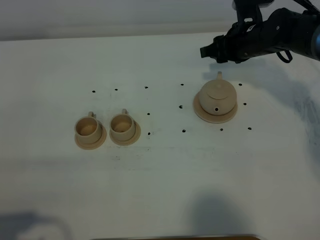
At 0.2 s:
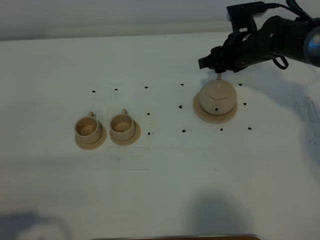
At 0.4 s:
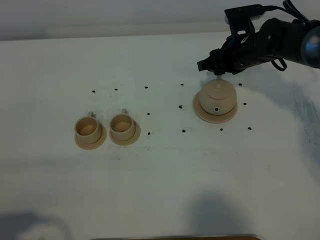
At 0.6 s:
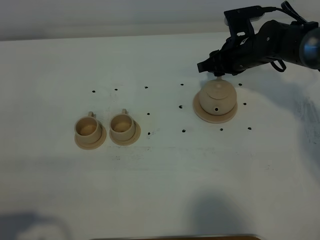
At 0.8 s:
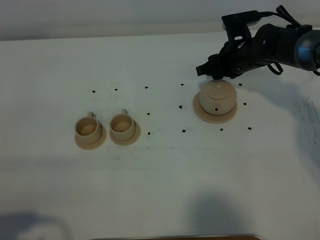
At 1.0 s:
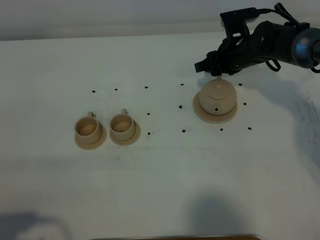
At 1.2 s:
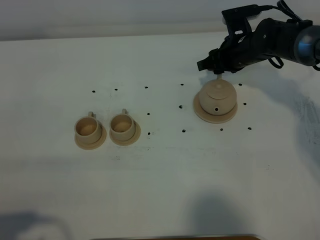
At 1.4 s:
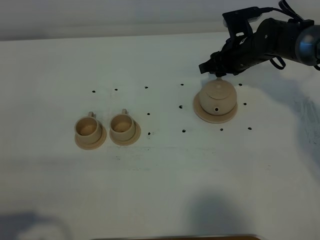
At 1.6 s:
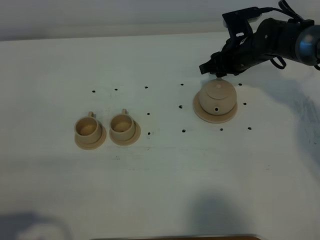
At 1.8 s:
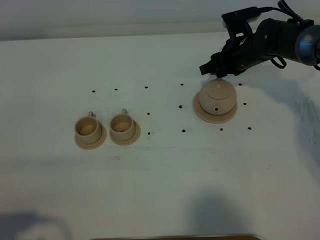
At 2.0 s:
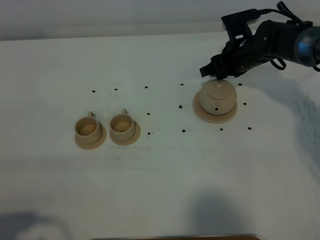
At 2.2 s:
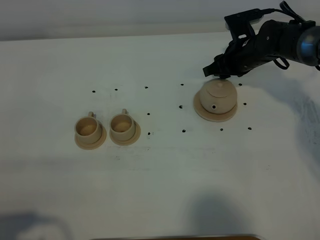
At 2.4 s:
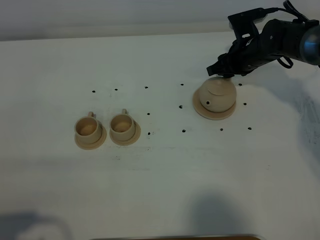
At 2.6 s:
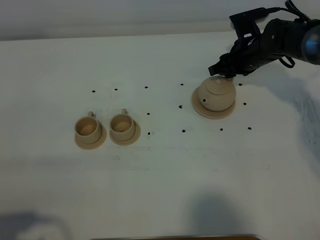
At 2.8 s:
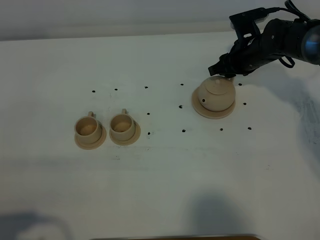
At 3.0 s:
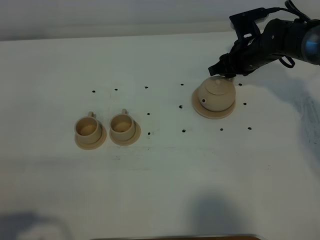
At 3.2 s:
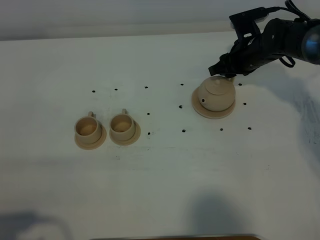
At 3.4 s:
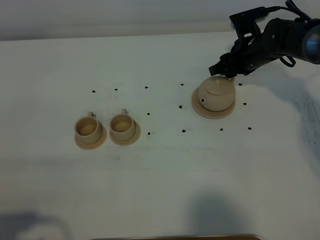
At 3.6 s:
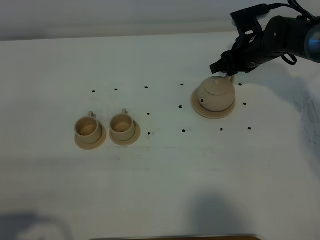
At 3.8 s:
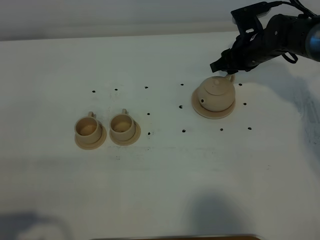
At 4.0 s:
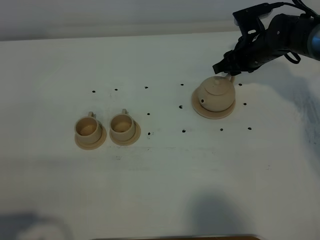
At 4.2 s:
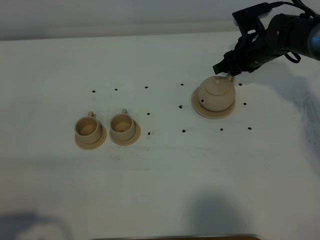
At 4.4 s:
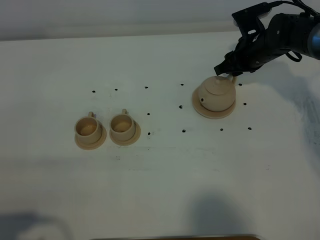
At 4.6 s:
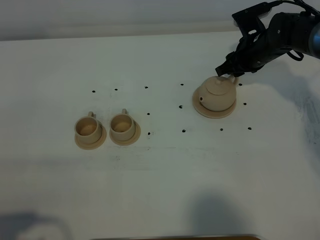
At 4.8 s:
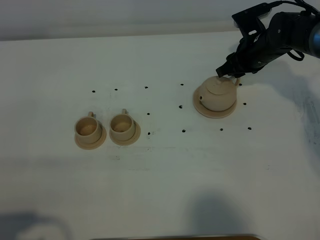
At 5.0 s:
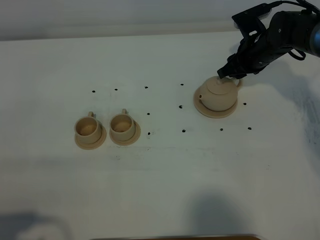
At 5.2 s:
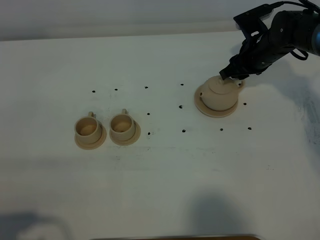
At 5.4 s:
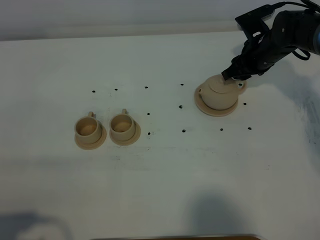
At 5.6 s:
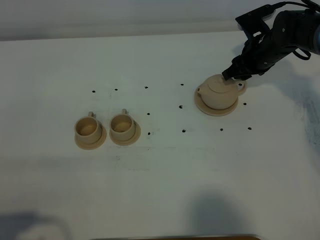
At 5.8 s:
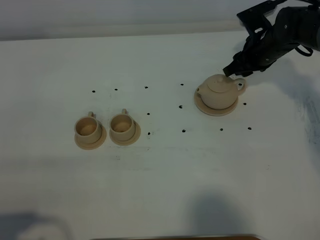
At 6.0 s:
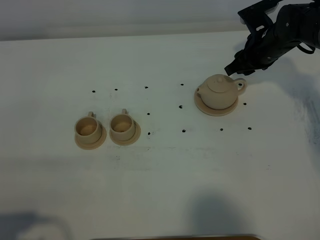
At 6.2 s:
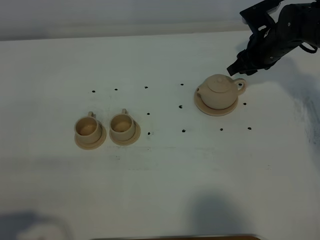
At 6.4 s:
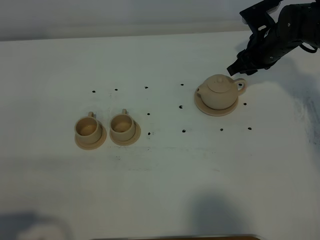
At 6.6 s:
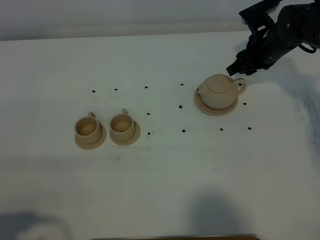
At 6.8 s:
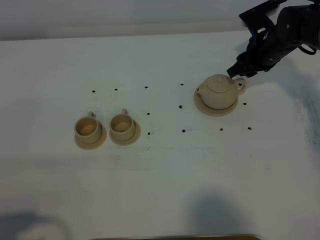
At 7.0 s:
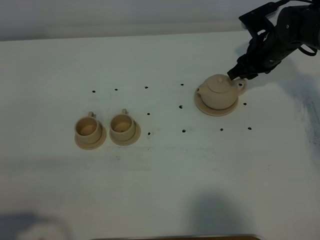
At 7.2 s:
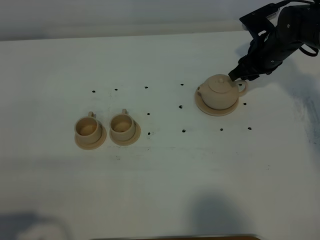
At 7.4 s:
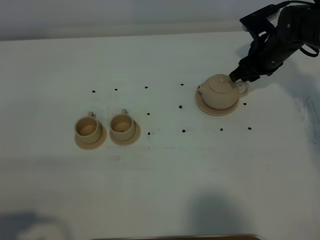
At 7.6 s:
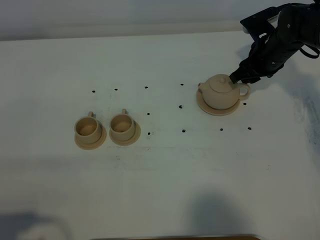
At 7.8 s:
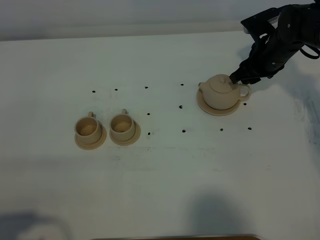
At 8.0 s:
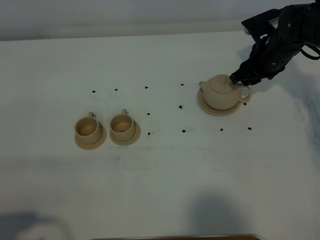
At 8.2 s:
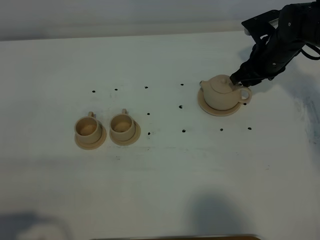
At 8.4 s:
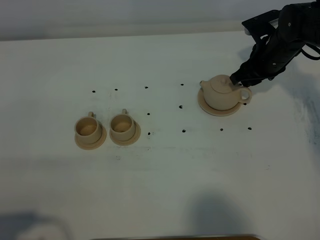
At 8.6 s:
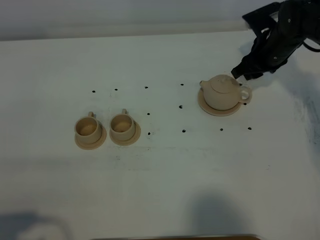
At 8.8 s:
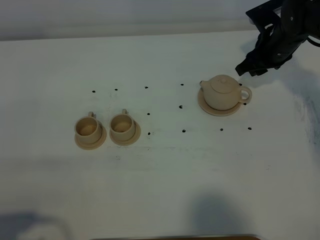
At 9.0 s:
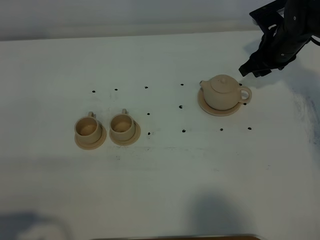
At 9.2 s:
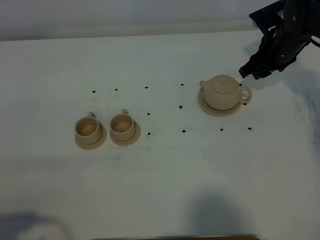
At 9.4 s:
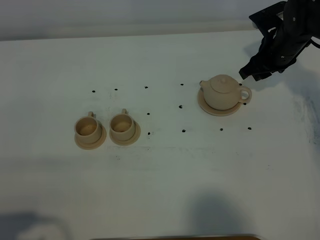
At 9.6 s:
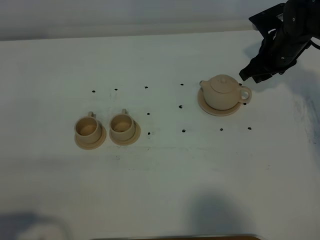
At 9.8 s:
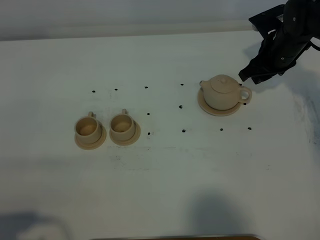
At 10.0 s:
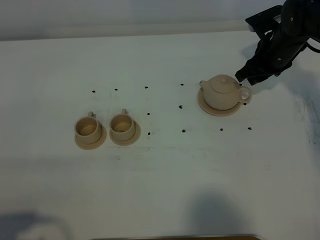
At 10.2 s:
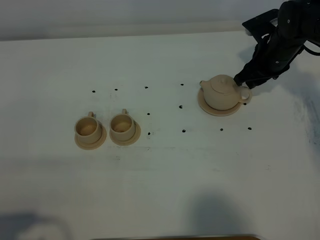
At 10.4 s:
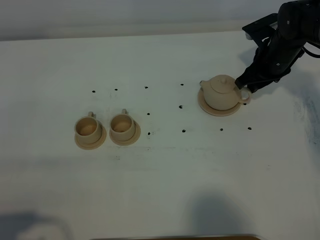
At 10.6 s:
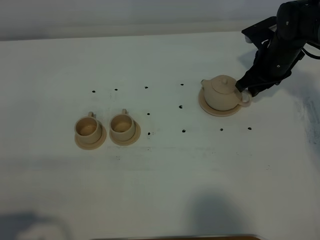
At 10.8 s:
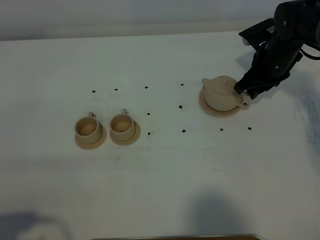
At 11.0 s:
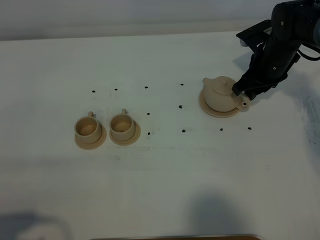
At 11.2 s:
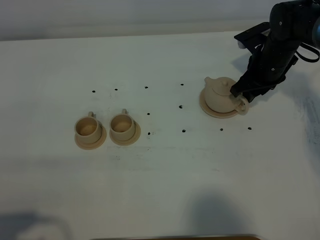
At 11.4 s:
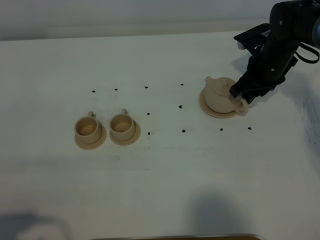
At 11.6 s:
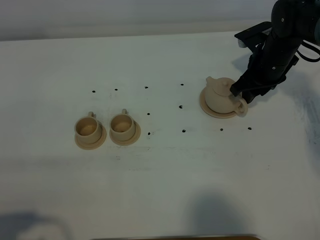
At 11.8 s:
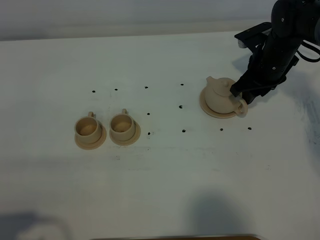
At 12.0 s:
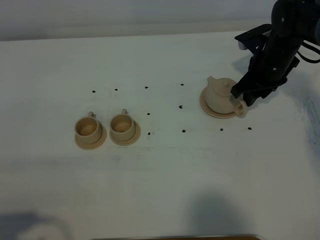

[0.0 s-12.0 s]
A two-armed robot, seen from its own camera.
Task of the whole recording: grasp the brown teapot and pour the tea into the two brown teacups one by one, put the brown teapot back in its original place.
0.0 to 3.0 s: The grippers stay close to where they were, moving slightly.
3.0 to 4.4 s: Both grippers stay put.
4.4 to 9.0 s: There are only small adjustments of the grippers.
9.0 to 12.0 s: The grippers stay close to where they were, moving slightly.

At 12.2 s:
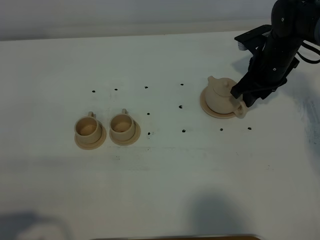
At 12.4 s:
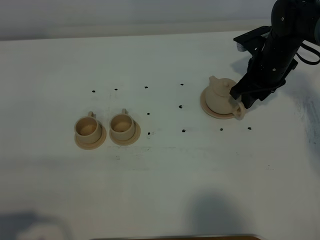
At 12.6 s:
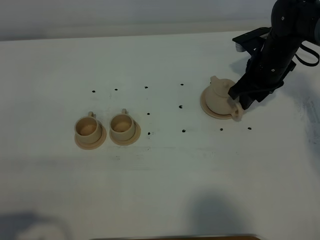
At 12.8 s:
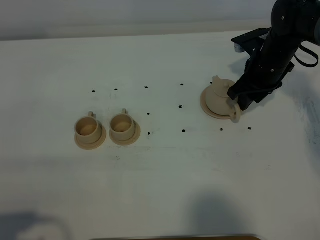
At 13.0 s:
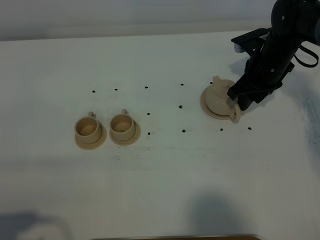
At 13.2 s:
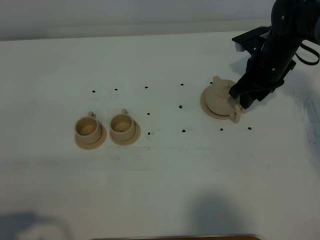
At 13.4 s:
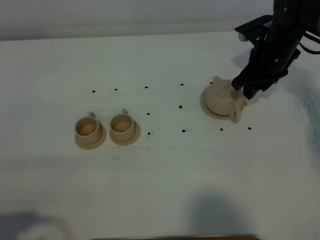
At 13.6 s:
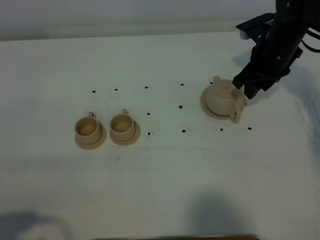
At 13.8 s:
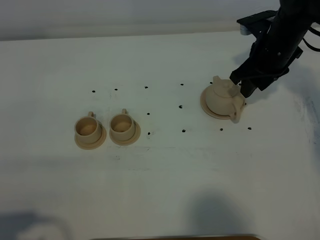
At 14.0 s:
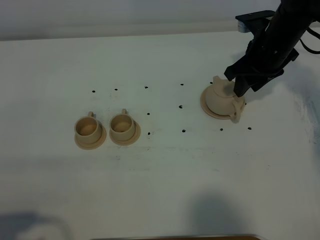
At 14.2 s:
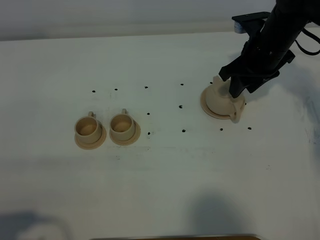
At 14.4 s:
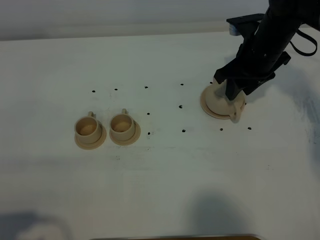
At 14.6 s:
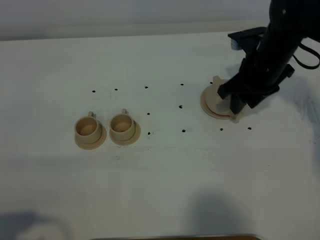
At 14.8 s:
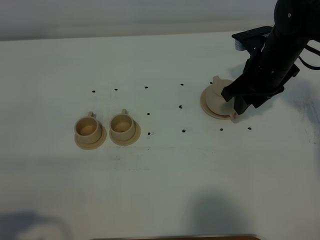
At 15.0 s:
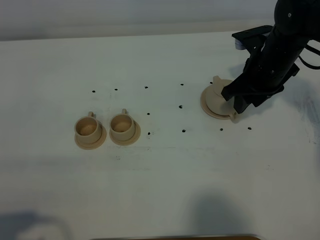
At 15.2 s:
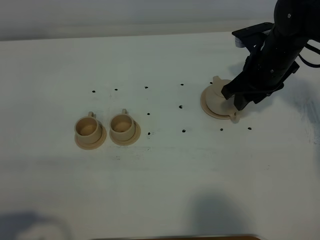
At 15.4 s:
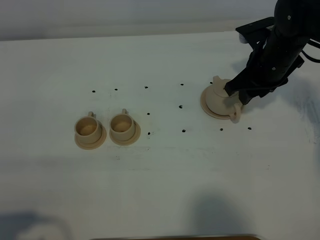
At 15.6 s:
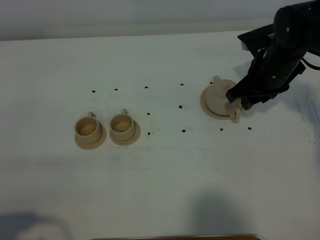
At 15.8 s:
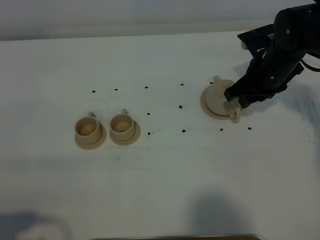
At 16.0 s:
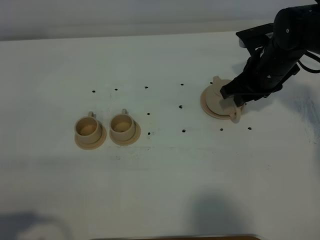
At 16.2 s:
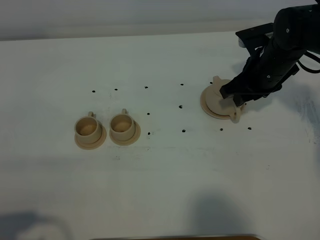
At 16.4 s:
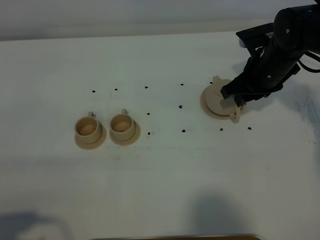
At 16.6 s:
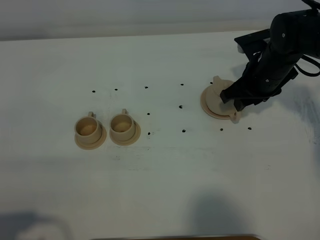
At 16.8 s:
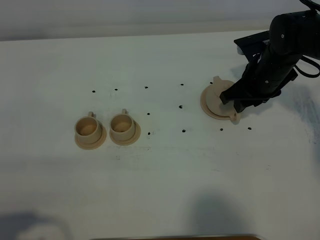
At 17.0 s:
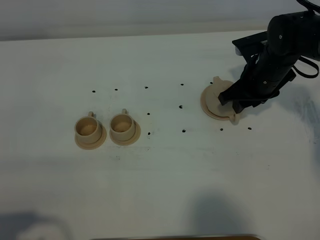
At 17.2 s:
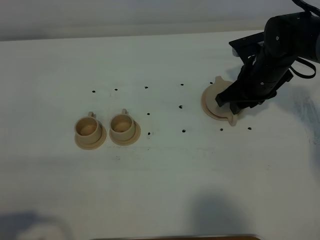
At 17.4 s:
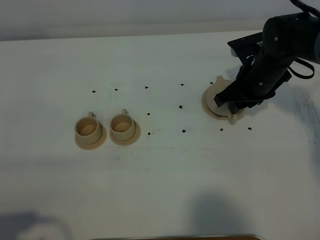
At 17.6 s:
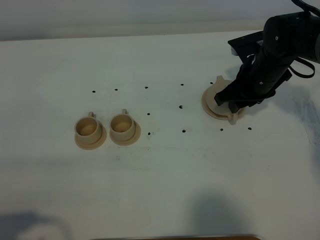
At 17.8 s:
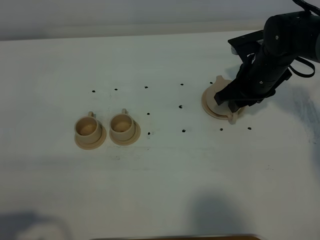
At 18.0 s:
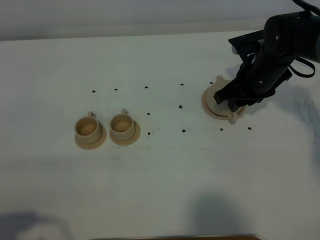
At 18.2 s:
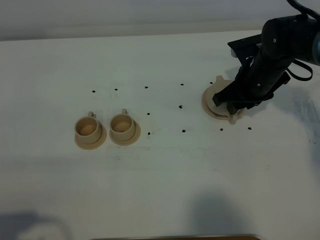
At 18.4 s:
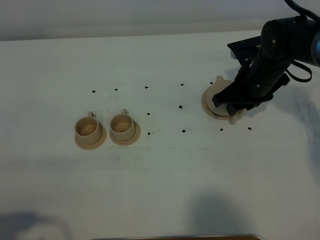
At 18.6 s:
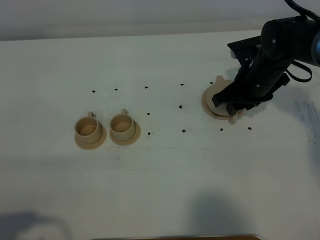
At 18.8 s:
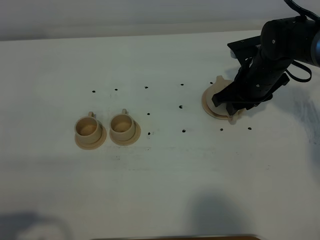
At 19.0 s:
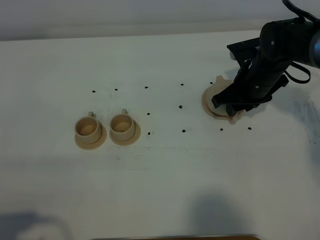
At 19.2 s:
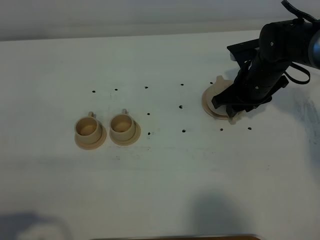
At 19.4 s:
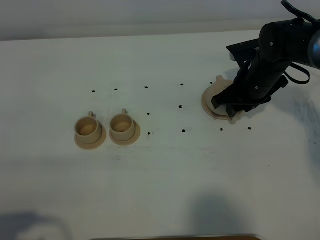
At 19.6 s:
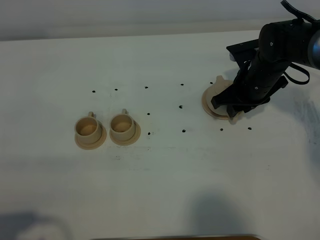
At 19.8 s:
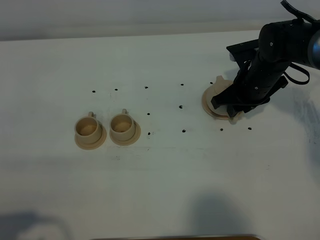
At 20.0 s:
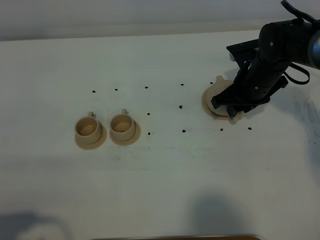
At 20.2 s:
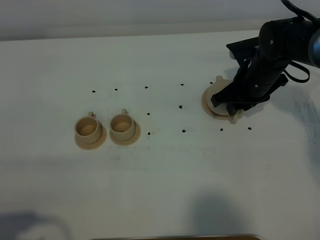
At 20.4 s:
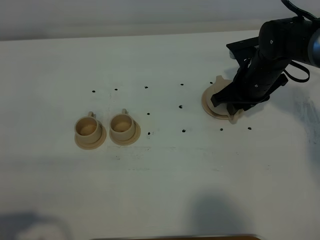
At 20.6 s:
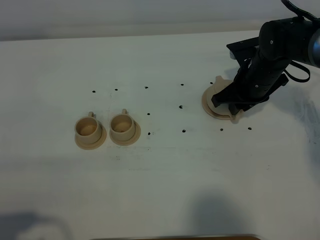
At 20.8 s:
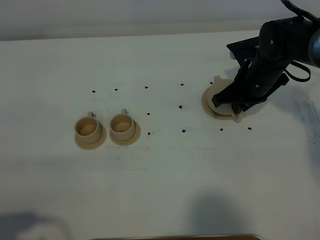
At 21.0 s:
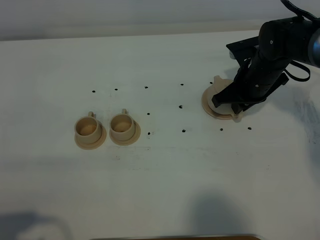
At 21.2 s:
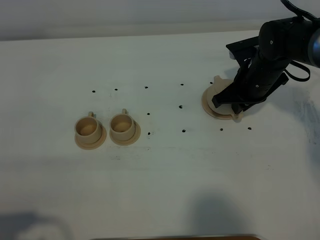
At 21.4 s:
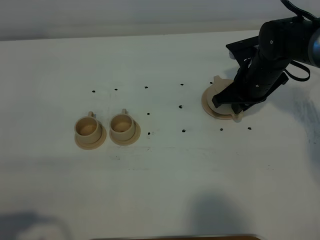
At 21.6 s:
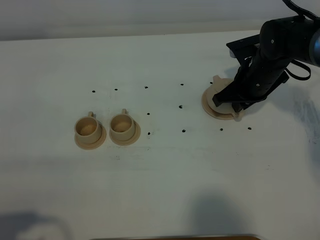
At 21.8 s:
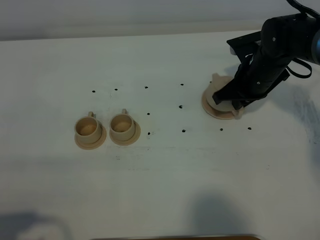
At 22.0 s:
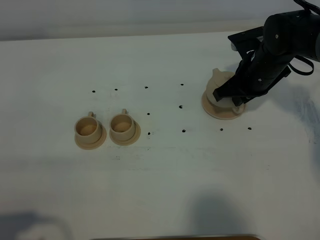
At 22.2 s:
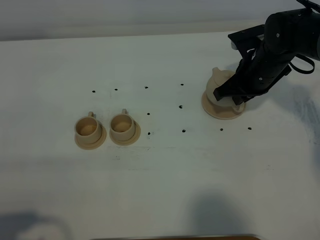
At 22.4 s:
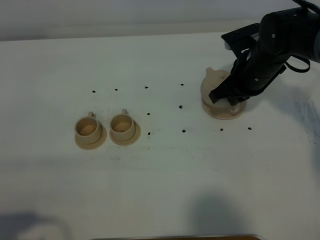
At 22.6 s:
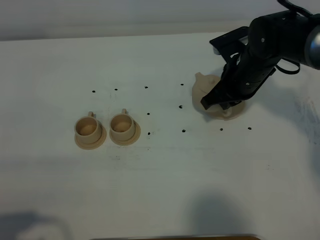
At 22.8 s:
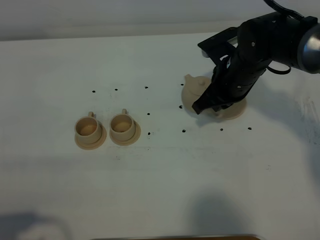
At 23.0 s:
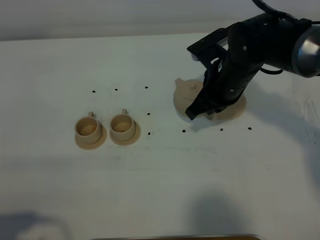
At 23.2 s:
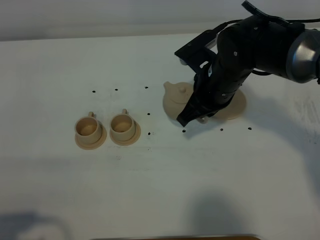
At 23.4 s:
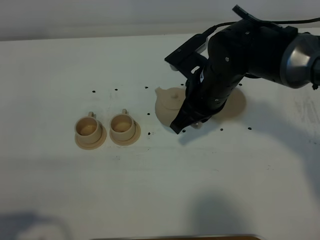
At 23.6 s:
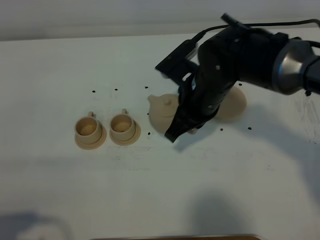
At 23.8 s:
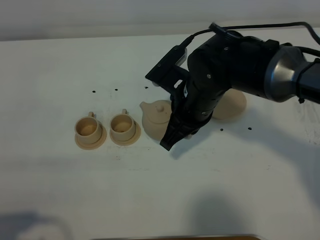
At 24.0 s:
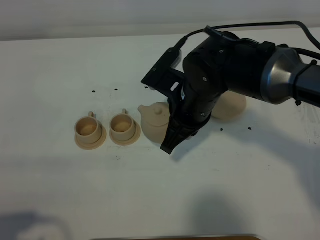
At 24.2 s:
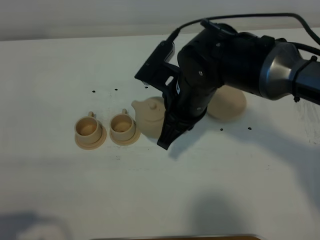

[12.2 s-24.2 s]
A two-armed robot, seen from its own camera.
Task of the whole recording: grasp the brown teapot and pour the tea into the two brown teacups one by one, put the brown teapot back in its original place.
Step, 12.2 to 22.2 s: Pick up the teapot with the right gripper.
12.2 to 13.8 s: The grippers move only a little.
13.8 to 18.2 s: The grippers stay close to where they were, moving slightly.
18.2 to 19.8 s: Neither gripper changes place.
19.8 to 21.2 s: The right gripper closes up.
21.2 to 22.6 s: There are only small adjustments of the grippers.
22.6 to 24.2 s: The right gripper shifts about 15 cm to the left and backward.
